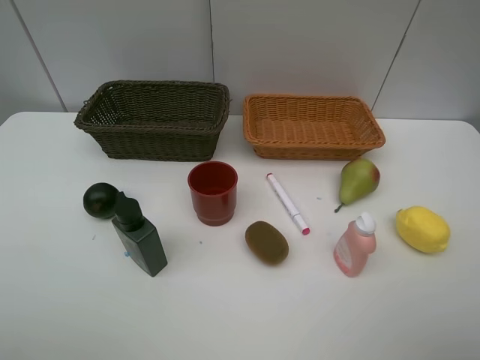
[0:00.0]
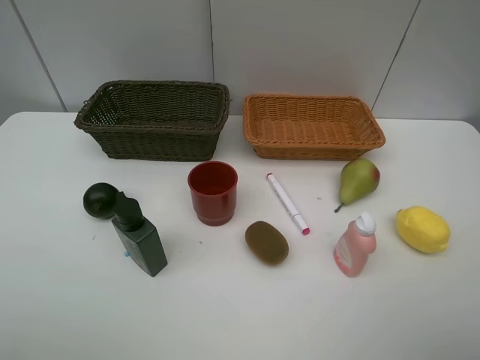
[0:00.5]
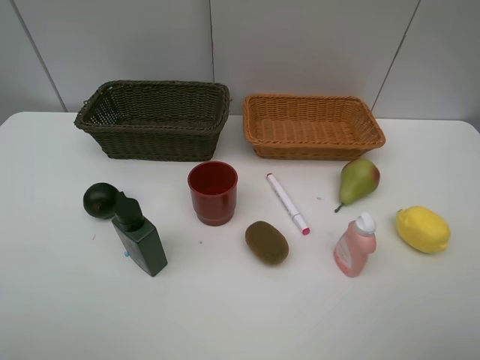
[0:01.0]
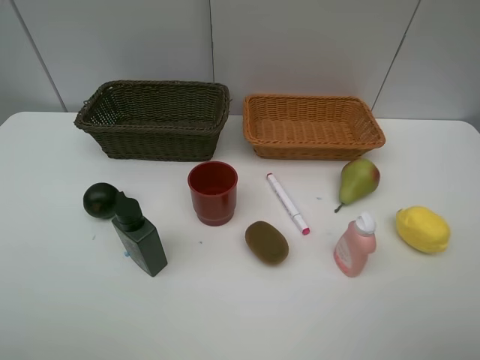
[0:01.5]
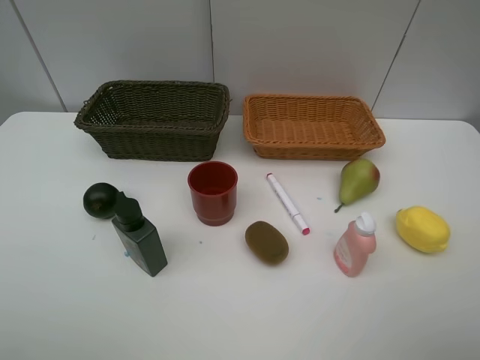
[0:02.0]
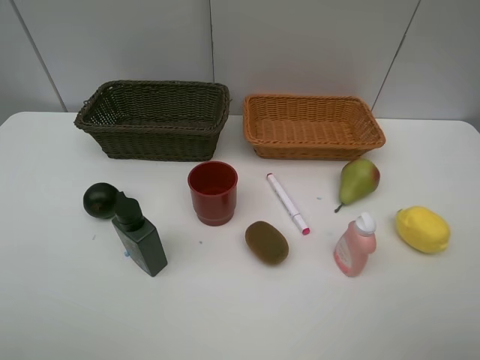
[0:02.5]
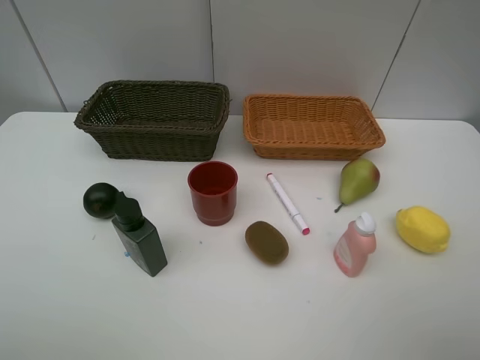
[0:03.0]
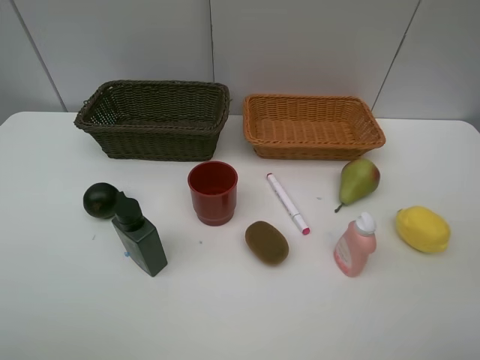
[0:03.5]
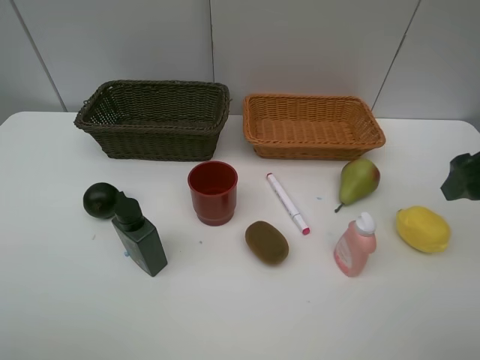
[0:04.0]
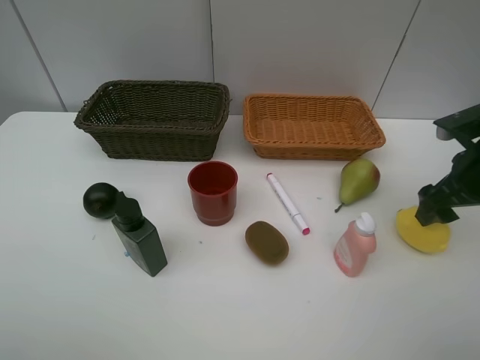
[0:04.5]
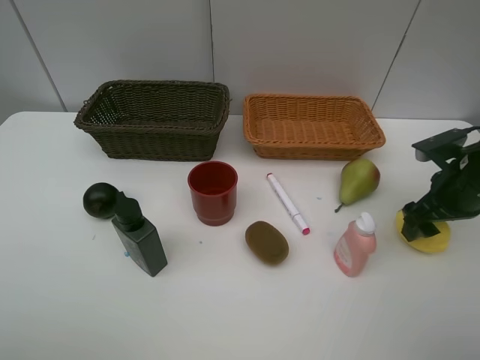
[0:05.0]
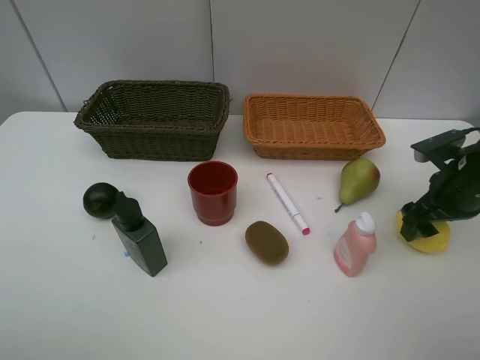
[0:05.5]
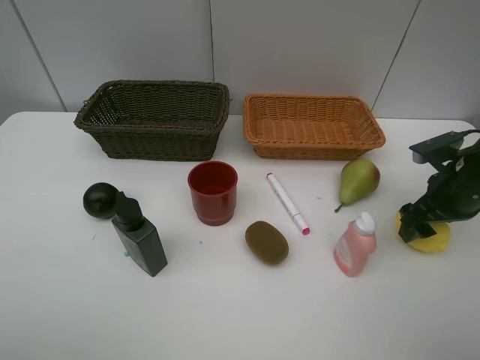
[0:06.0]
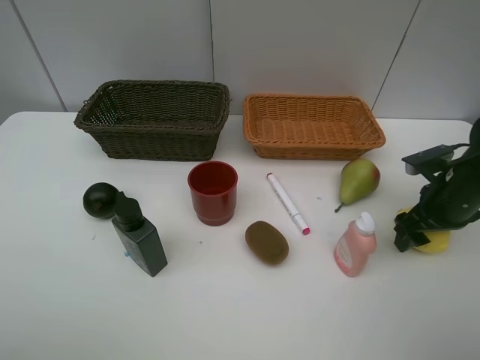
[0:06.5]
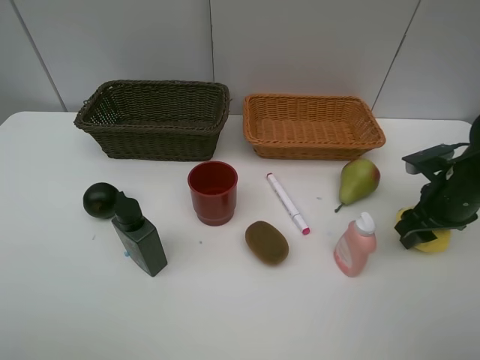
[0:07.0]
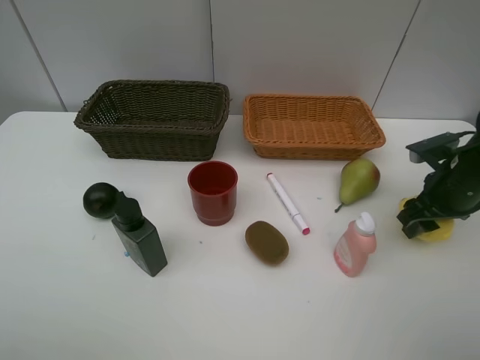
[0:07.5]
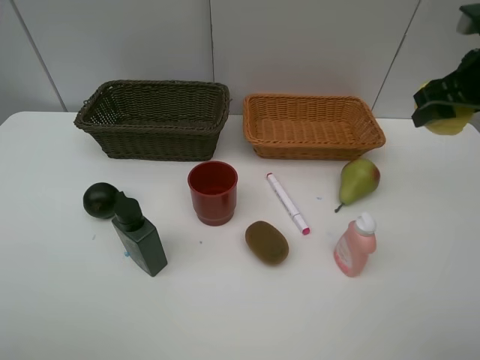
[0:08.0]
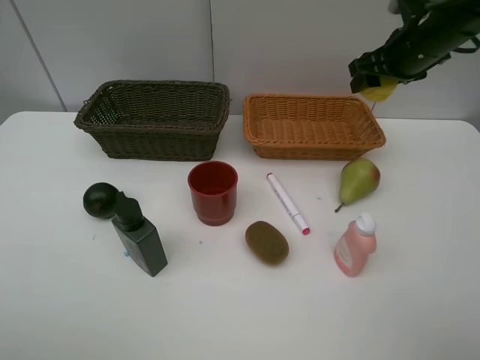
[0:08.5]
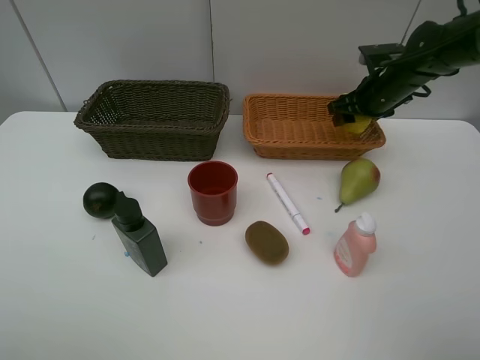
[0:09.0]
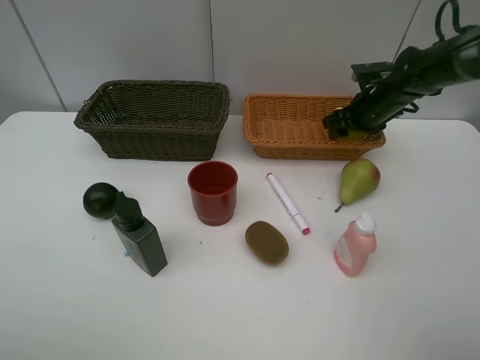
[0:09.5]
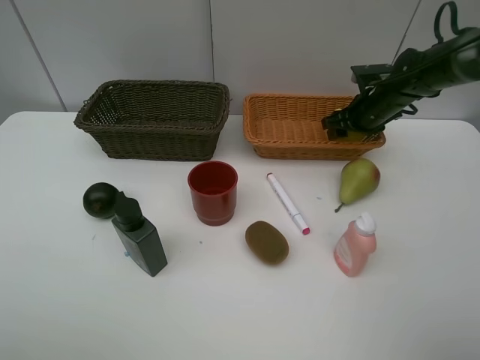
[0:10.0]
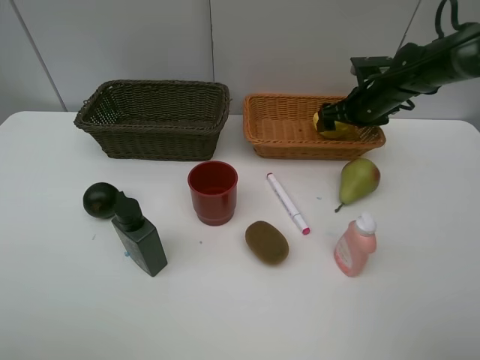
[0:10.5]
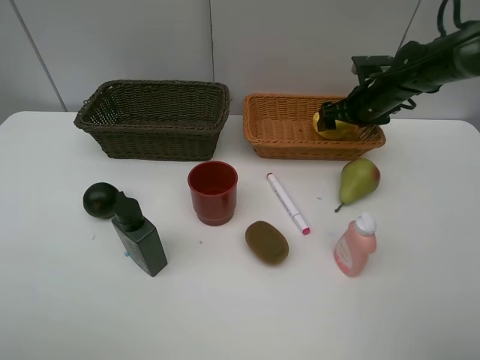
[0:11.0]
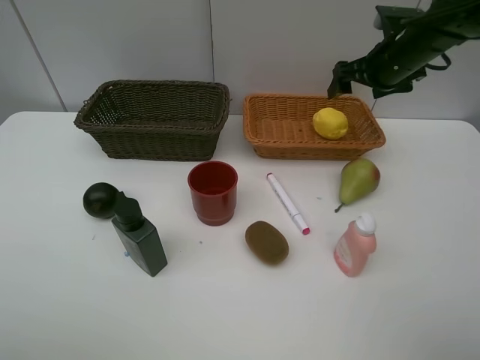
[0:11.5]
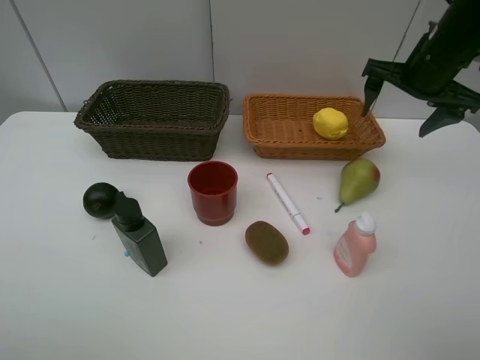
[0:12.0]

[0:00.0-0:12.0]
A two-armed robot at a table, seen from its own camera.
Task of the whole recording: Place multiple objects separately in different baskets.
Step, 0:00.0 to 0:07.5: Pick up the lemon with right gripper.
Step, 0:08.0 to 0:11.0: Place the lemon in the light basket with right gripper.
0:00.0 to 0:02.0: The two grippers keep their place.
0:02.0 to 0:04.0: The right gripper is displaced forward by some 20 cm.
0:04.0 to 0:06.0: The right gripper travels downward by approximately 10 cm.
0:06.0 to 0:08.0: The right gripper is displaced upward by about 15 cm.
0:08.0 to 0:10.0: The right gripper is displaced downward and forward by approximately 20 cm.
0:10.0 to 0:12.0: The right gripper shifts approximately 15 cm upward and backward, and opens.

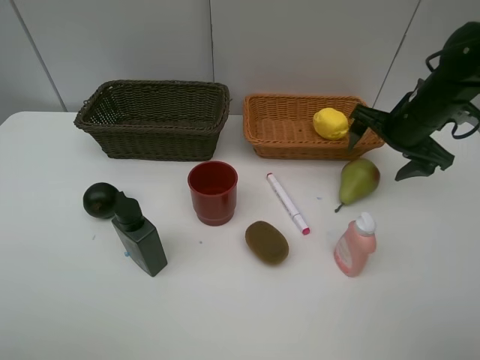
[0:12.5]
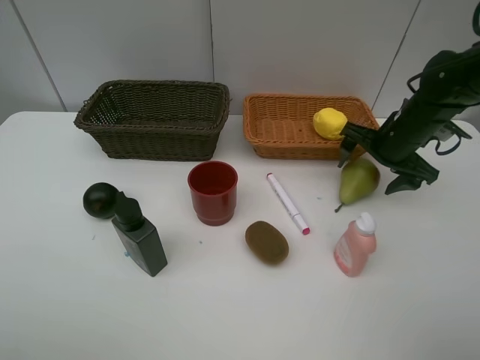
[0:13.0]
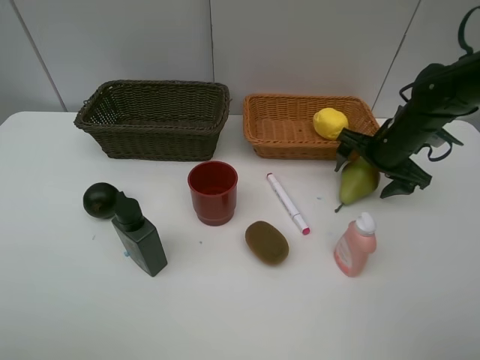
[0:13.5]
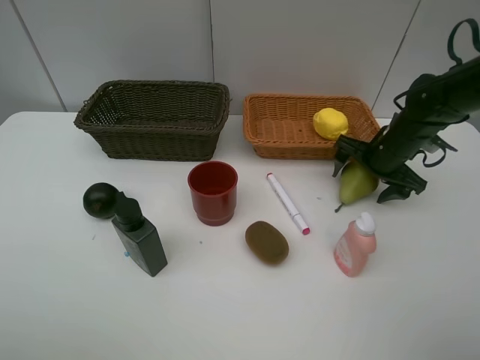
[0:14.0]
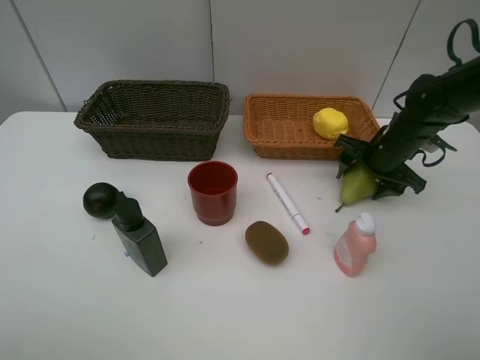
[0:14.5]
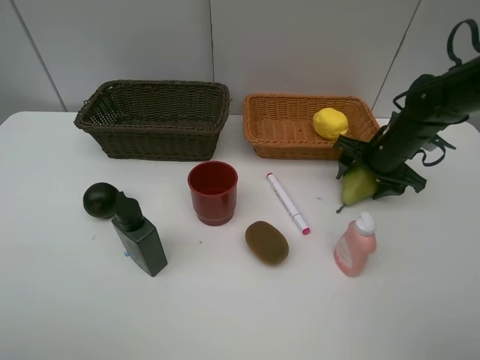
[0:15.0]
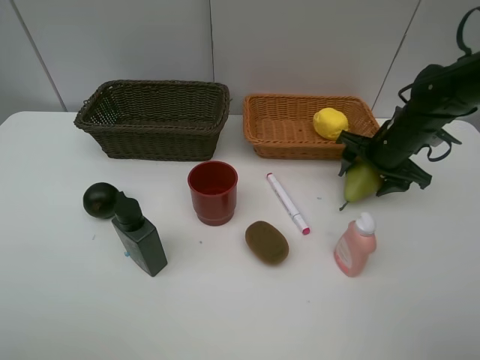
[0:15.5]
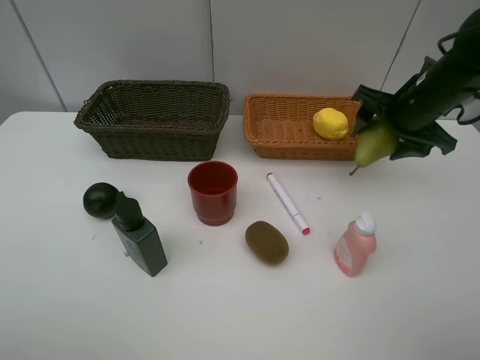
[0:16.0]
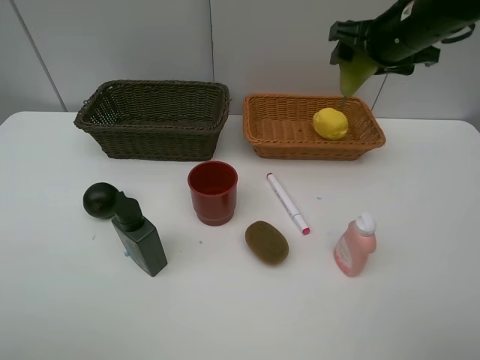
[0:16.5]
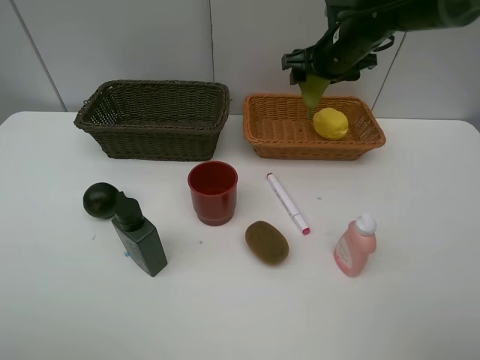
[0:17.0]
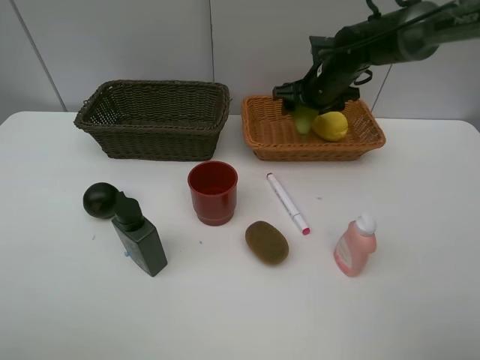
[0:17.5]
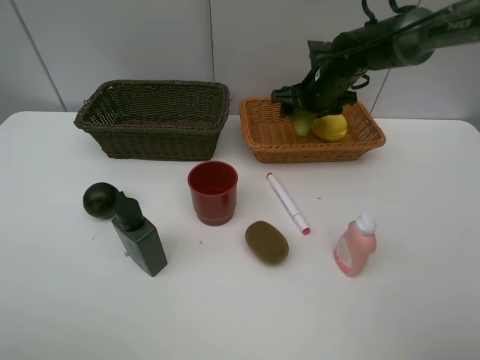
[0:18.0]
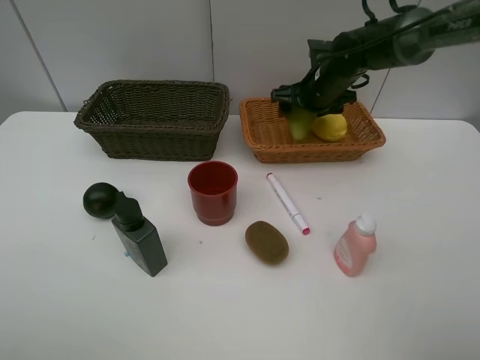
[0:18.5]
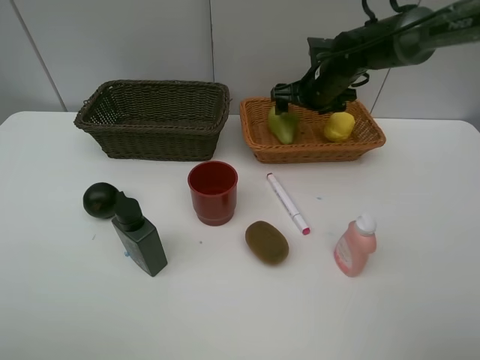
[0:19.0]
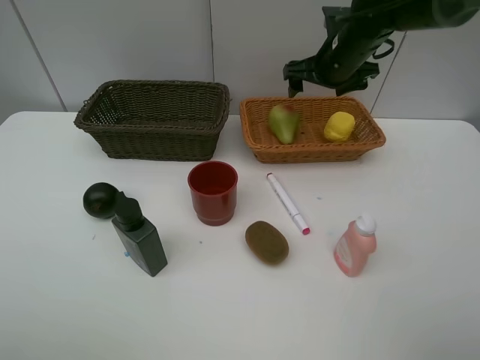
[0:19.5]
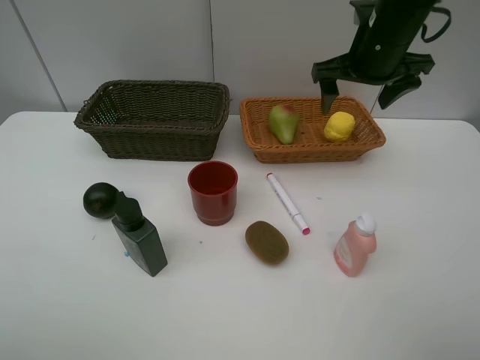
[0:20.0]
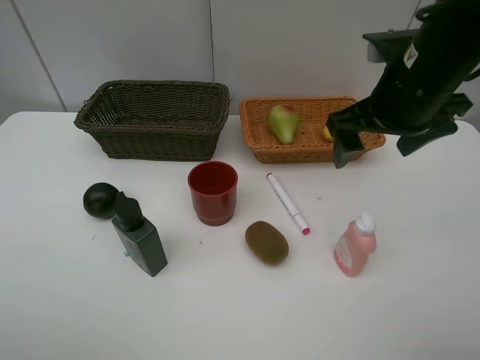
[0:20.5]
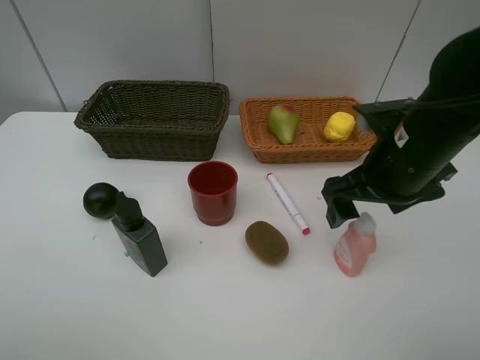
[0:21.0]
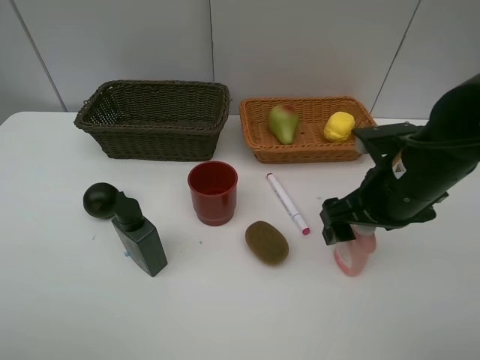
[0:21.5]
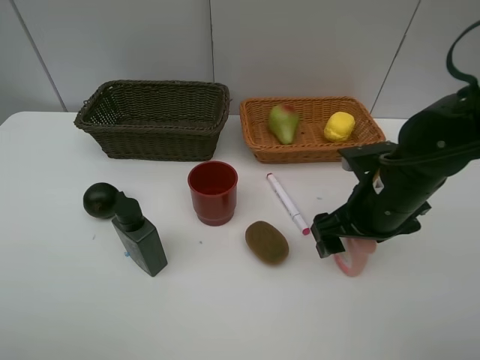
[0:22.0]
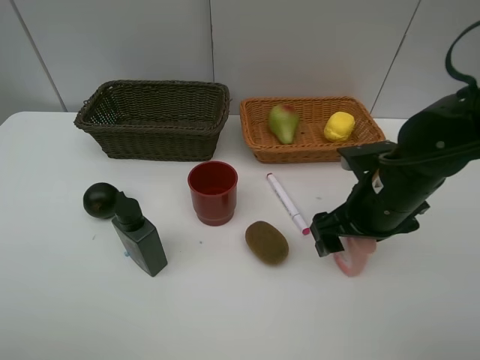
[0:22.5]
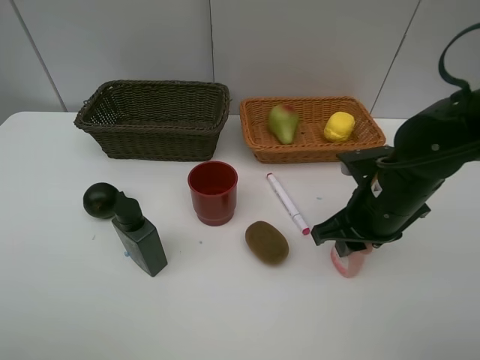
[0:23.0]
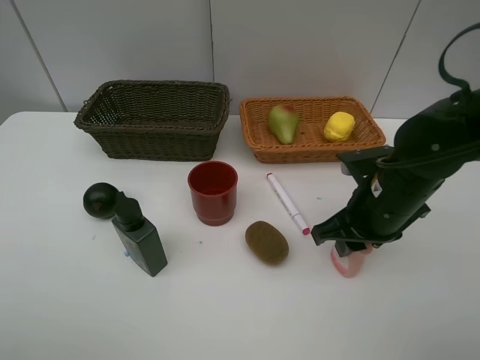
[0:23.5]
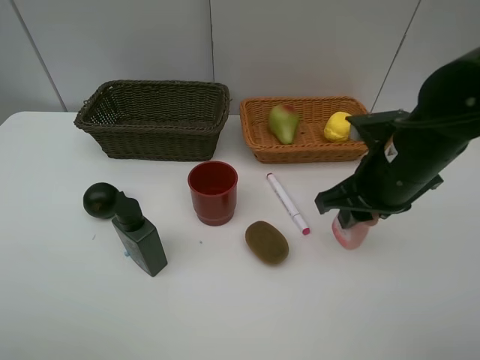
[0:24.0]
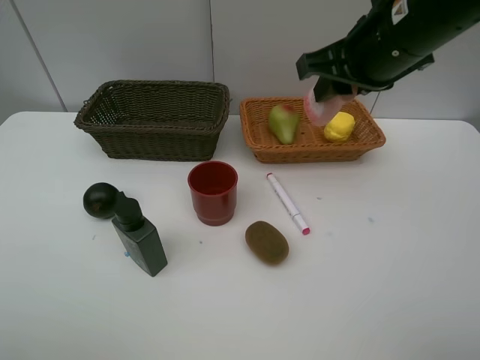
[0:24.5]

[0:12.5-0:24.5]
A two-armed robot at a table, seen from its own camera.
Task of the whole recording: Place multiple objects separately in different baskets.
Step, 0:12.5 to 0:15.5: Pick up the pear with right gripper.
Step, 0:16.0 to 0:19.0: Place the pear in the light basket with right gripper.
Step, 0:19.5 to 0:24.0: Pick up the laundry detergent with right gripper.
0:12.5 to 0:14.5: The right gripper moves downward, about 5 cm.
0:14.5 to 0:16.5: The right gripper moves upward, some 15 cm.
0:16.5 to 0:18.5: The right gripper moves downward, forward and to the left, roughly 15 cm.
0:18.5 to 0:20.5: The right gripper travels backward and upward by about 25 cm.
0:20.5 to 0:22.5: The right gripper moves downward, about 10 cm.
0:22.5 to 0:24.5: The right gripper shifts some 15 cm upward, and closes its fingers.

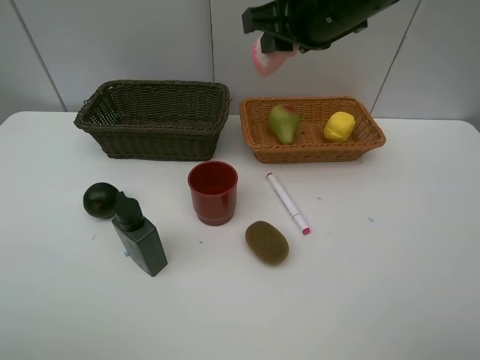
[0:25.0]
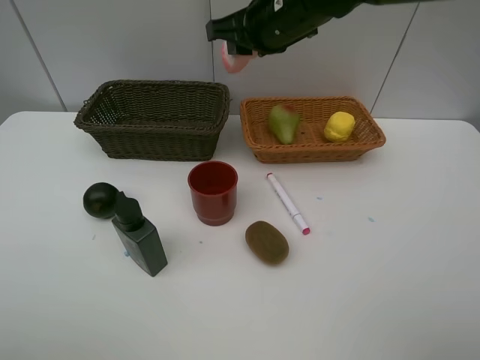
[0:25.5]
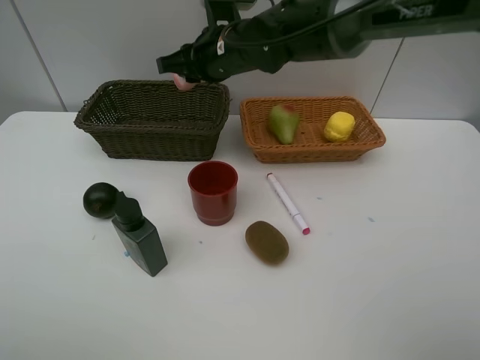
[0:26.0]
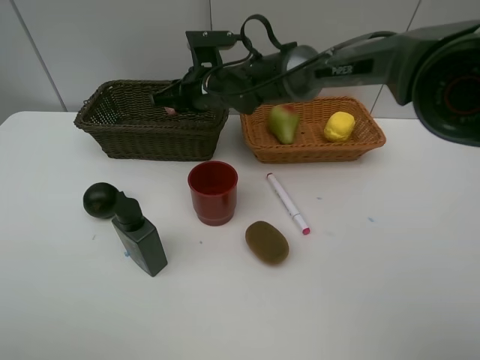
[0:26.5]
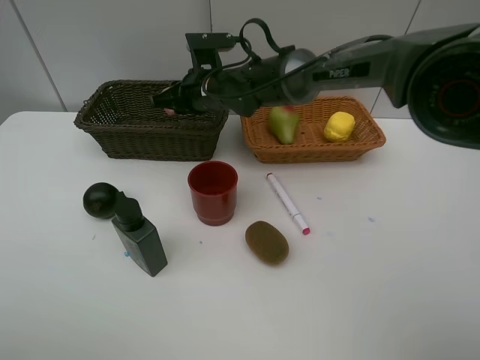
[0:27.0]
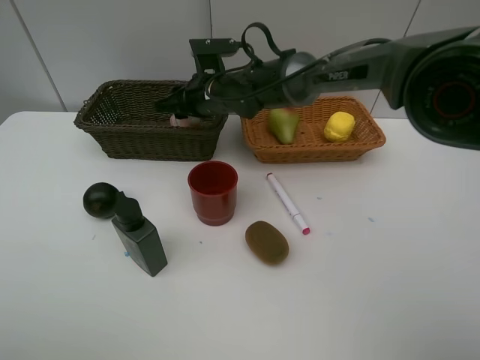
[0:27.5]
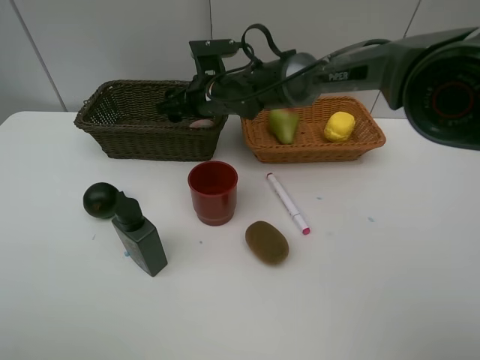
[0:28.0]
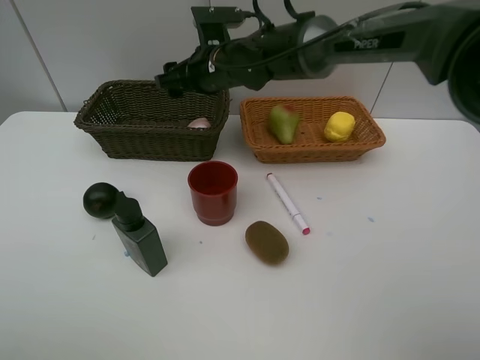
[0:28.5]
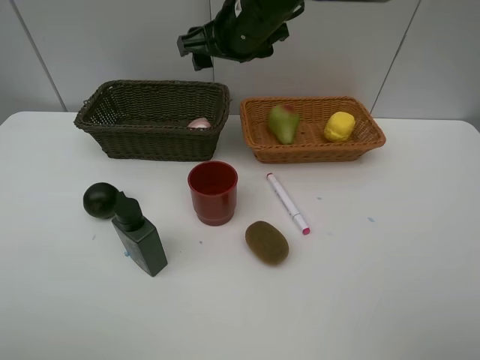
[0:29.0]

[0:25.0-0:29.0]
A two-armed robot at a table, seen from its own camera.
Task of the whole recording: Place multiple objects separately in different baskets.
Step, 0:25.0 to 0:28.0: Place the laundry detergent in the dark basket with right gripper.
0:25.0 to 0:27.0: The right gripper heads downward, to the left and forward, covering approximately 20 cm.
0:27.0 to 0:29.0: The right gripper goes roughly 15 cm upward and to the right, and opens.
